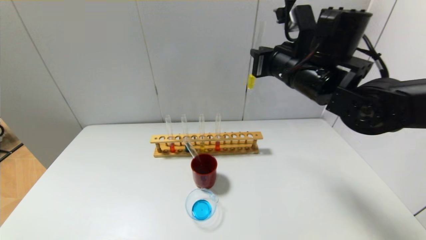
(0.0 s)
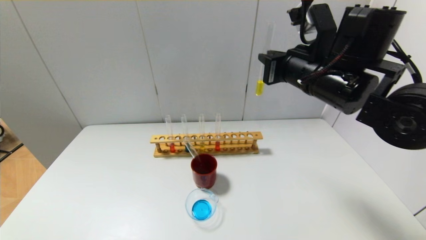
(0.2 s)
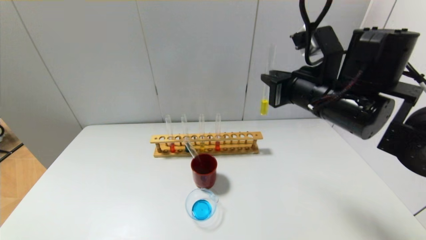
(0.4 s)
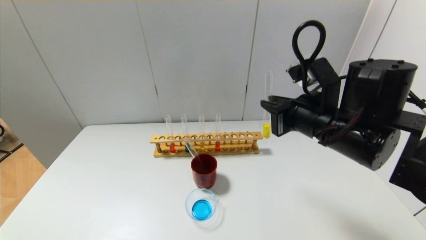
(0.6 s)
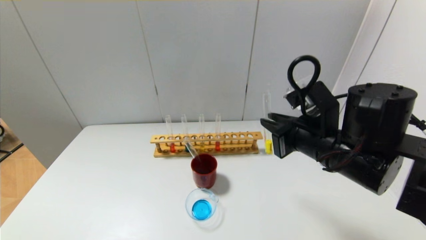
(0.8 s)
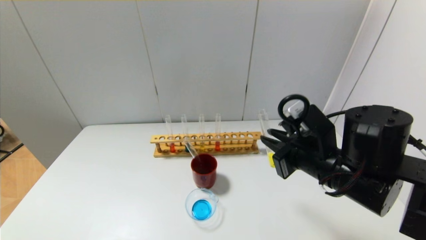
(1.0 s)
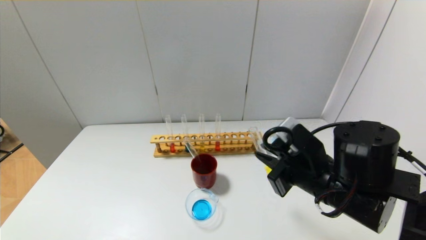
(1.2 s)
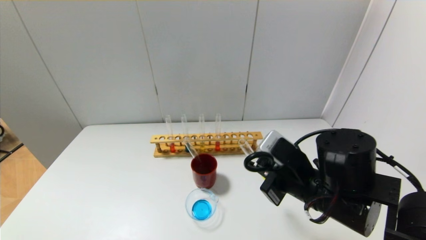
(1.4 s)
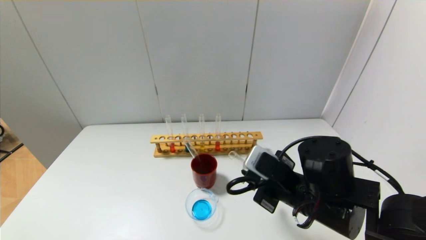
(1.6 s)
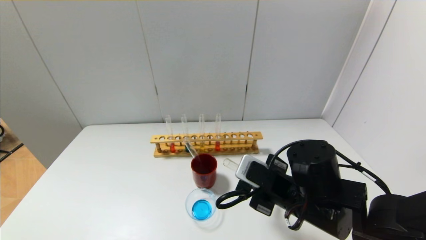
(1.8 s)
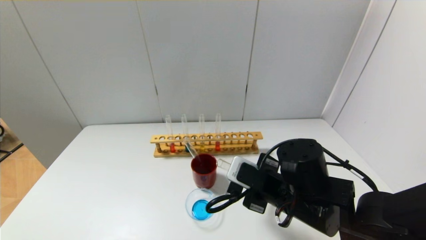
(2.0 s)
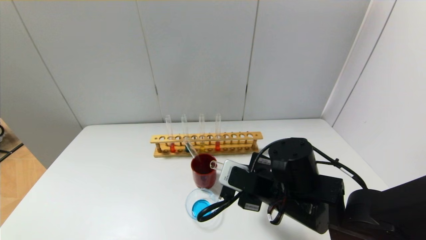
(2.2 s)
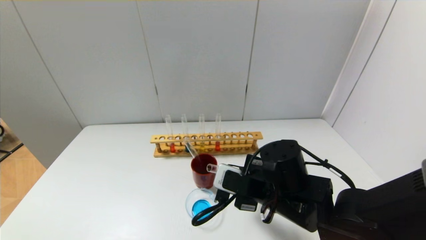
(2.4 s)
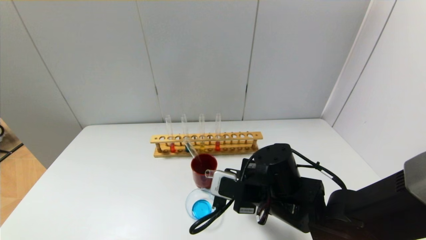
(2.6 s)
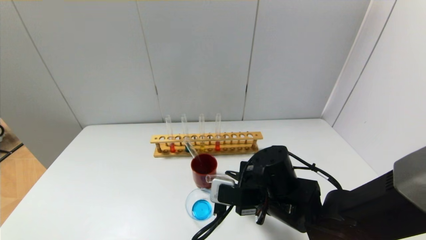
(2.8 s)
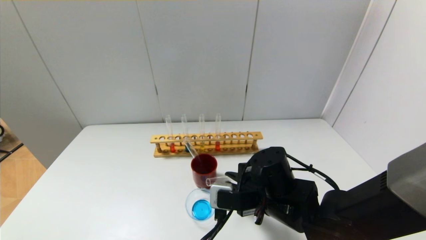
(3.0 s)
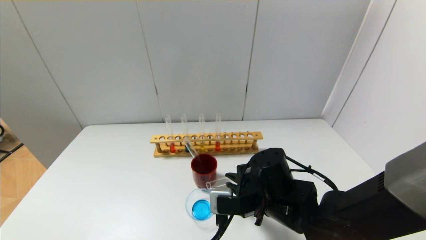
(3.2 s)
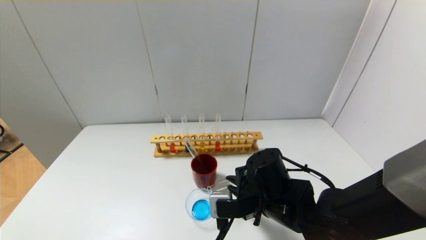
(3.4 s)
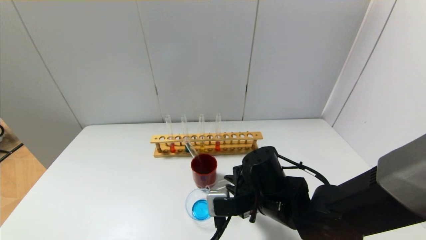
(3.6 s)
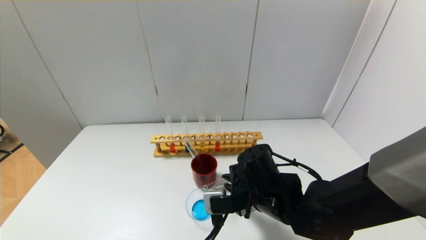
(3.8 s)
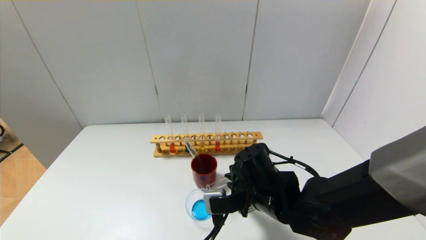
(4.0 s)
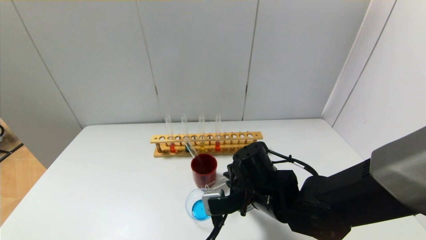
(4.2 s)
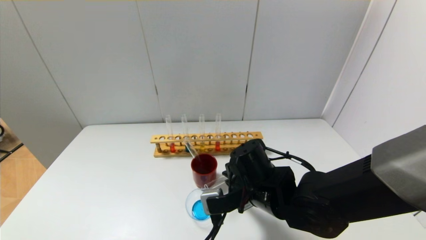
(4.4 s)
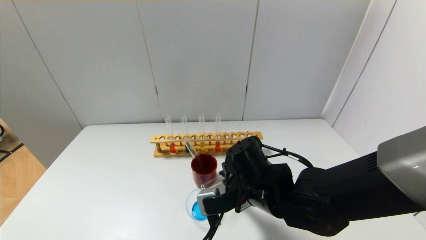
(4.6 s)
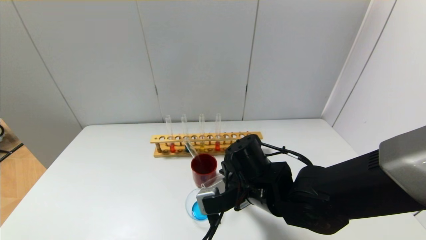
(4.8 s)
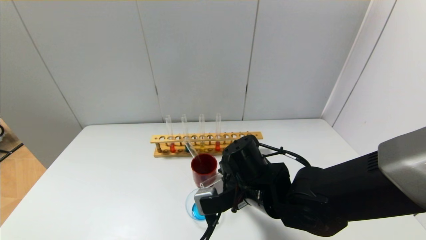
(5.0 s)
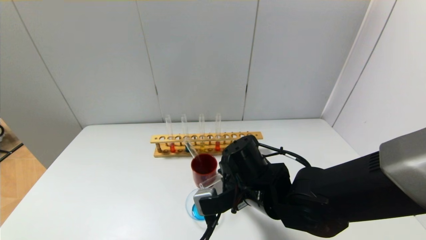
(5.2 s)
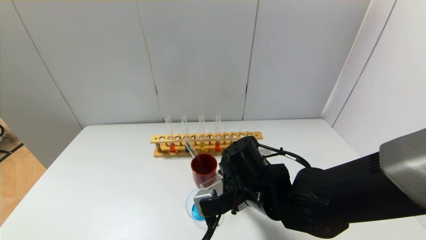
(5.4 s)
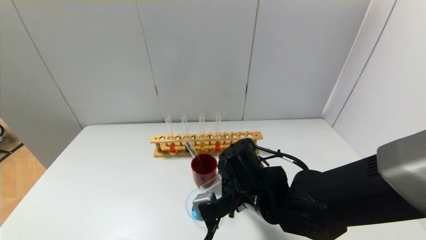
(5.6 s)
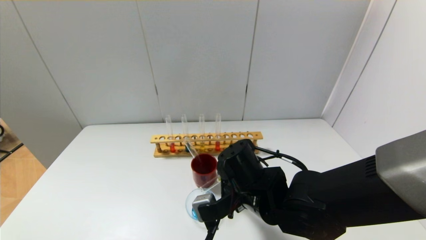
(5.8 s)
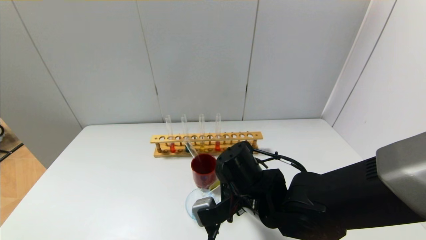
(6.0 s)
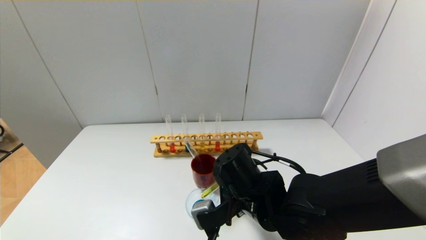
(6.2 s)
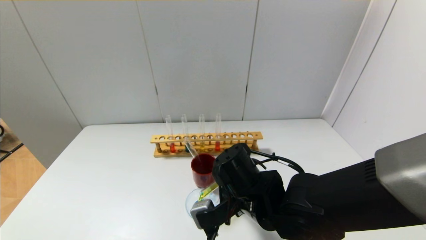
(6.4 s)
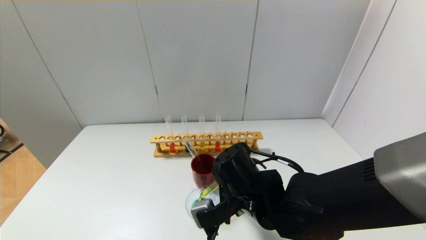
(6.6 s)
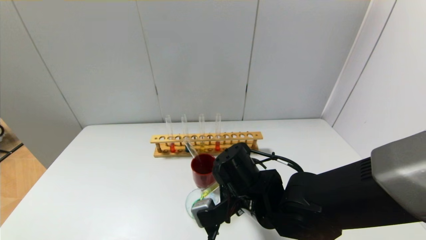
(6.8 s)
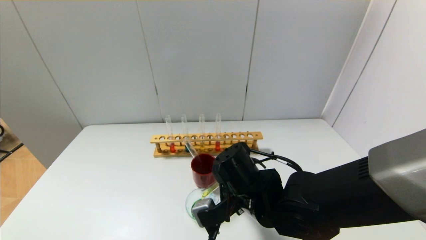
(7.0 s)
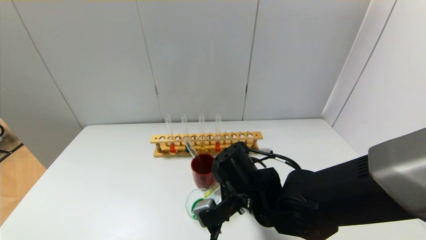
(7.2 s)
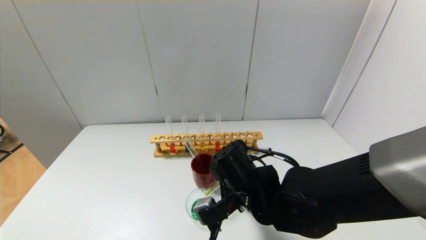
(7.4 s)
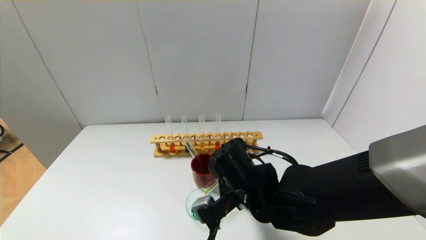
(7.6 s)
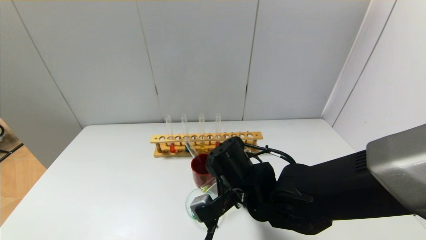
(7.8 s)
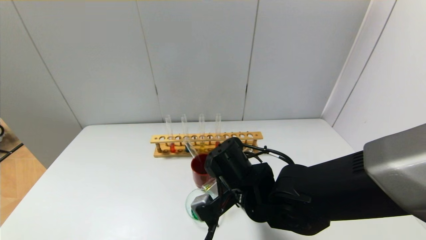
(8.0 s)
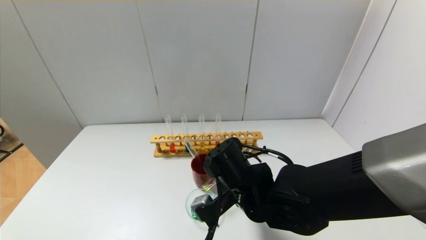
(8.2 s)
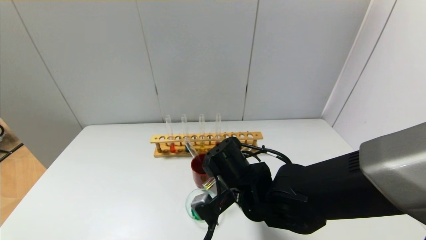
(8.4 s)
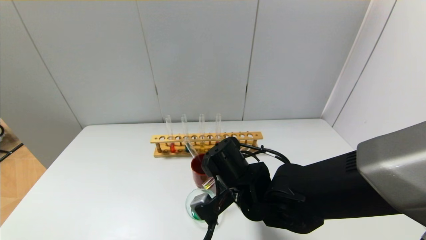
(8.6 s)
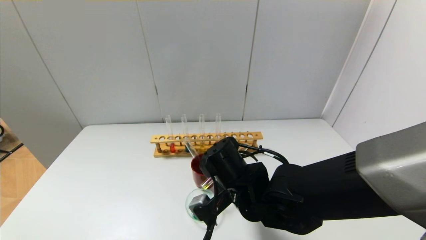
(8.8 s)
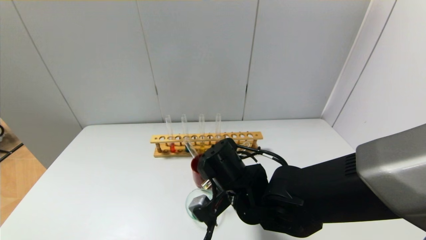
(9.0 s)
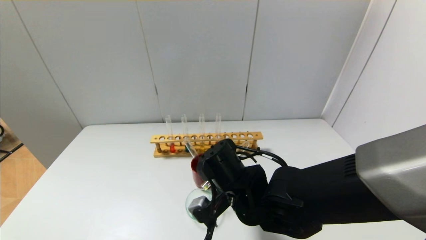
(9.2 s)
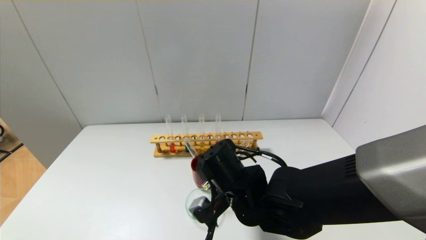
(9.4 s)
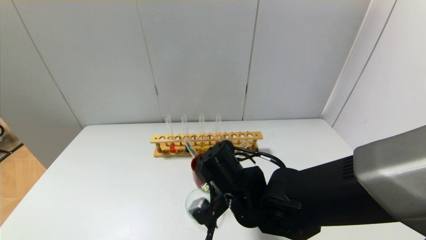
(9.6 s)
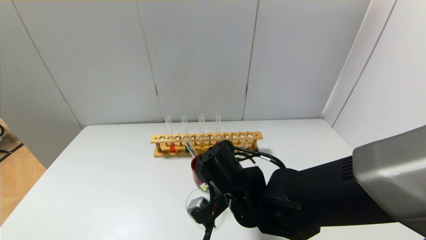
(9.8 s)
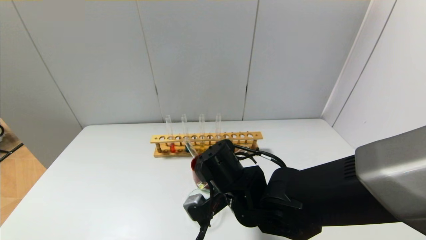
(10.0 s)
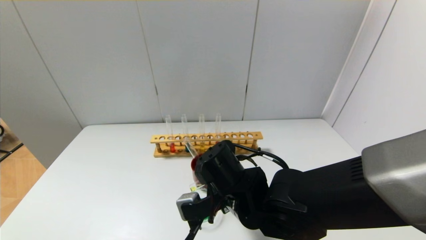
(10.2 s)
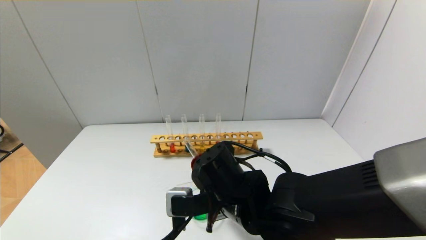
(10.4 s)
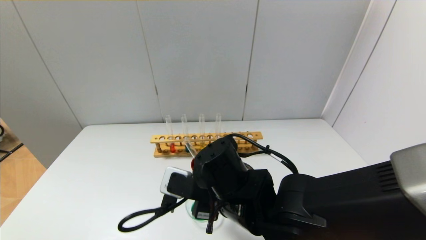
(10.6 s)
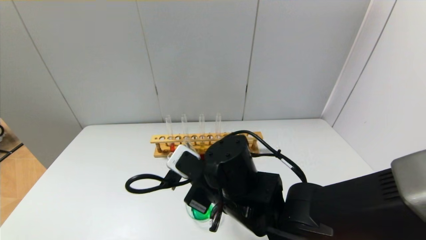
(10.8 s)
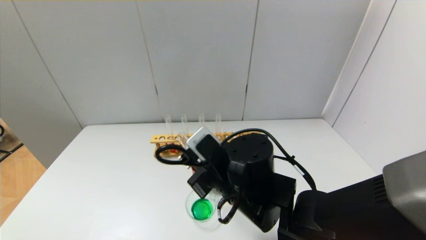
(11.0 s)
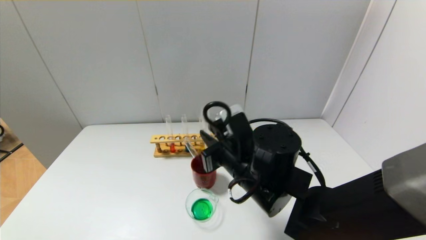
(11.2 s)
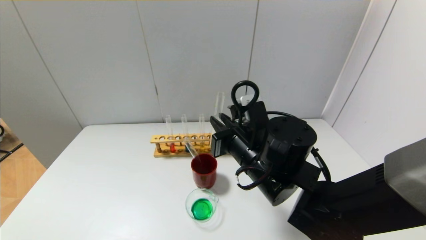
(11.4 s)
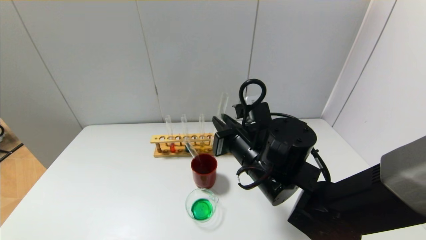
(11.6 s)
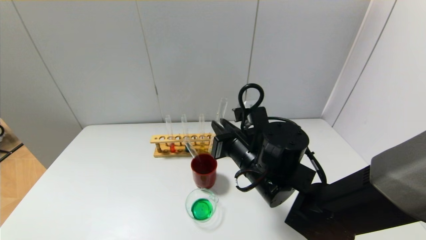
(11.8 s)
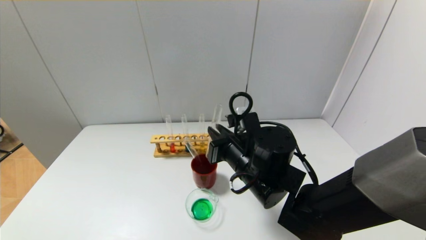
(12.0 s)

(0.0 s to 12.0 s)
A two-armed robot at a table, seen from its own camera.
Step, 0.0 s - 10.2 s: Pour the yellow reagent into the graduated cylinder with the right gripper.
0.0 s - 1.6 s: The right gripper heads downward and backward, covering roughly 20 cm.
1.6 s - 3.0 s: The right gripper changes place by roughly 5 cm.
3.0 s - 4.4 s: The grippers make only small movements.
4.4 s - 7.6 s: There are only small adjustments of the grippers.
7.6 s - 9.0 s: The grippers move only a little.
10.4 s - 12.0 s: The right gripper changes place by about 5 cm.

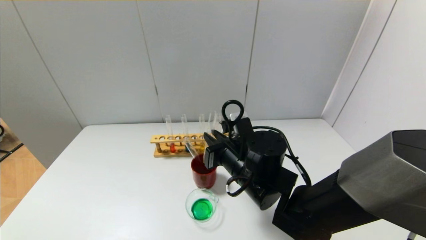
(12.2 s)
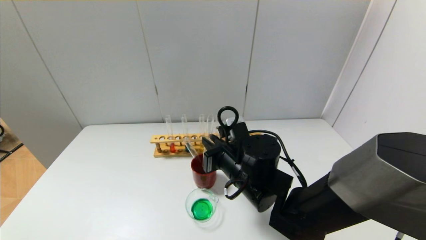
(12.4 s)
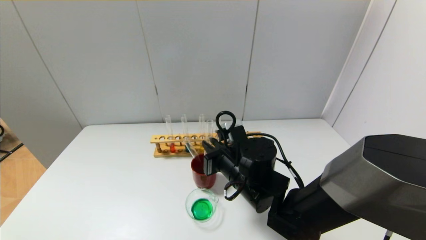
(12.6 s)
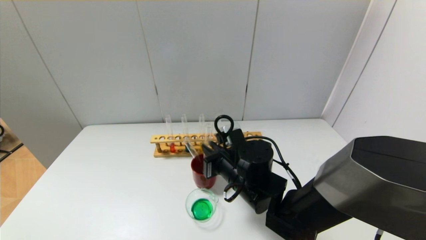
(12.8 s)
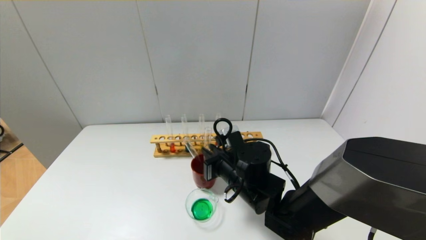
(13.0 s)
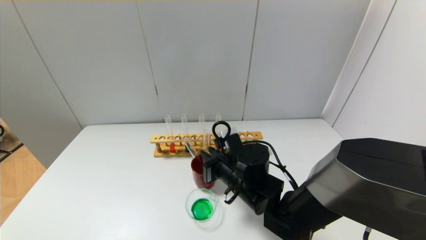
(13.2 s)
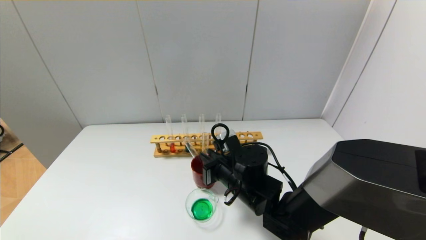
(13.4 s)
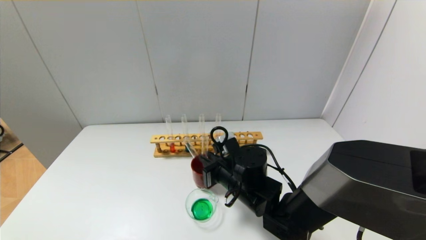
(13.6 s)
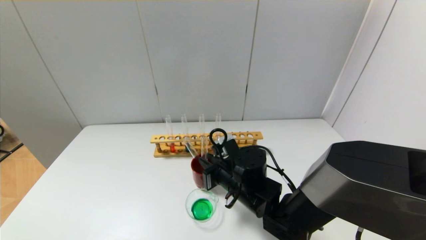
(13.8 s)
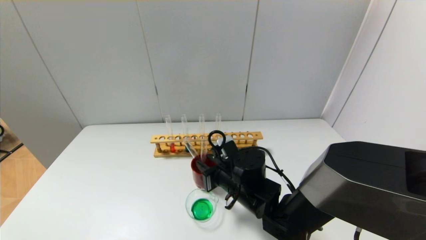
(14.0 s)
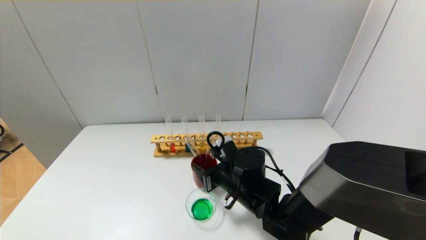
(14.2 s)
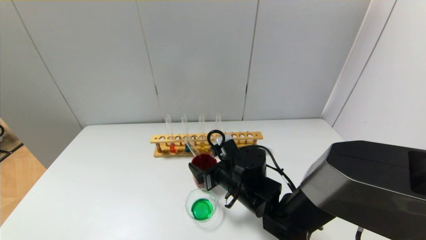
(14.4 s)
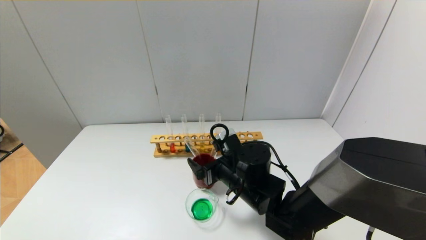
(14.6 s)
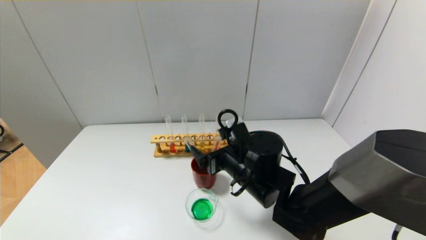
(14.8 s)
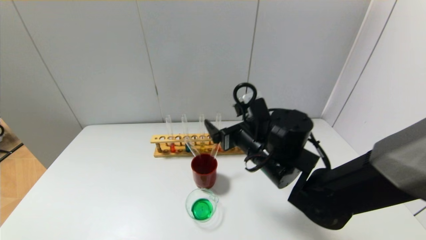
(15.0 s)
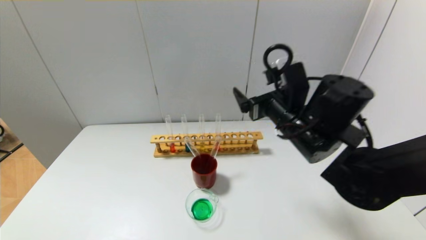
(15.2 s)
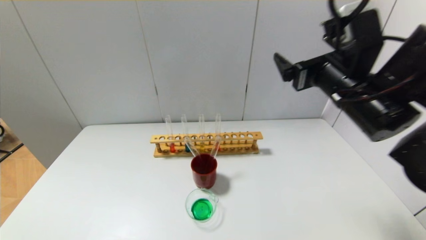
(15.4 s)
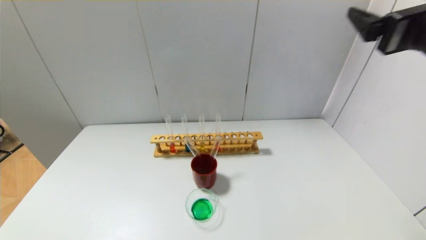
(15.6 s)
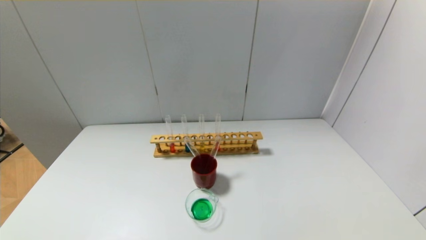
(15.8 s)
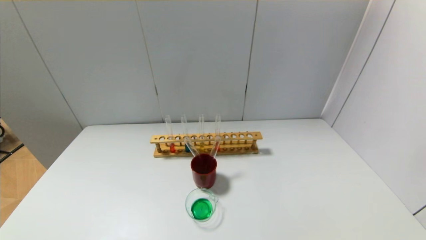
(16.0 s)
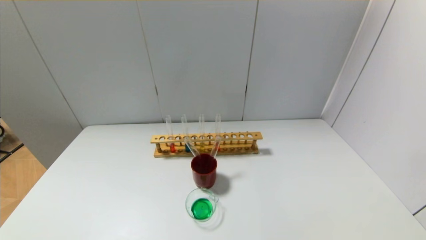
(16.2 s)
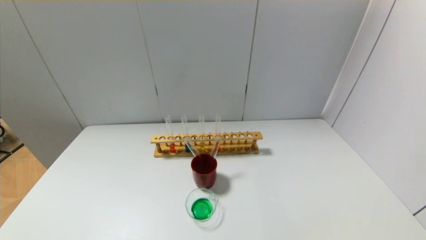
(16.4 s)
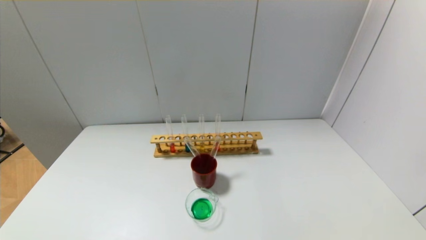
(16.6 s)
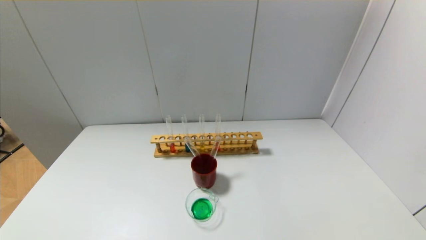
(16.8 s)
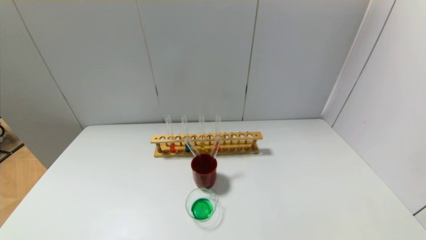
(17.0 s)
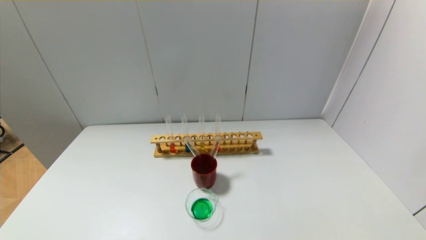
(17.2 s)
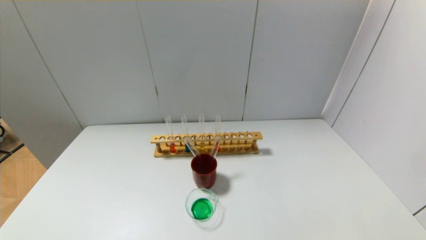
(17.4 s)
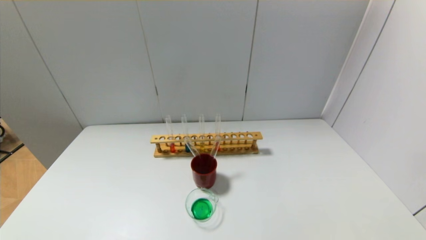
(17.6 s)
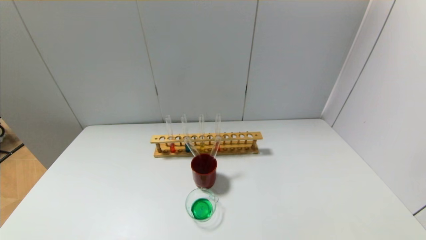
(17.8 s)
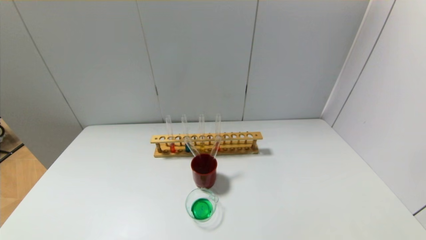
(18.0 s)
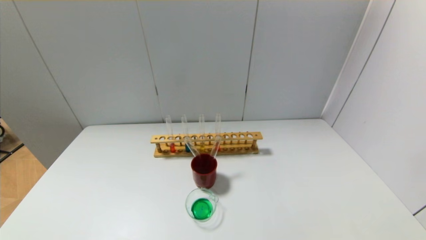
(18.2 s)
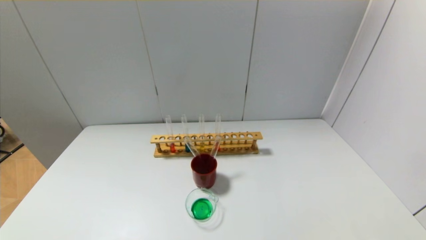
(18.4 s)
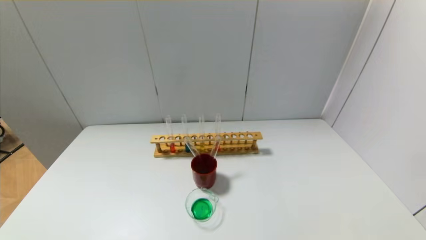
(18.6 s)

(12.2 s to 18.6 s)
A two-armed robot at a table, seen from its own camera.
Step, 12.2 s - 14.2 s: Place the test tube into the brown cup with the right gripper.
12.2 s - 13.8 s: The right gripper goes approximately 5 cm downward.
13.8 s - 15.4 s: The right gripper moves upward and to the right, approximately 25 cm, and opens up.
15.4 s - 17.0 s: The right gripper shifts approximately 35 cm backward, to the right and downward.
